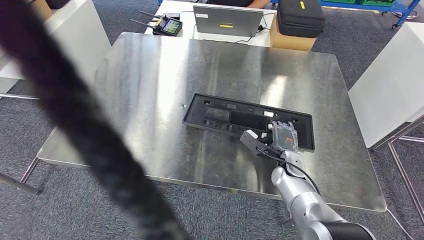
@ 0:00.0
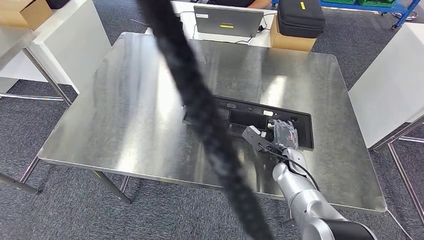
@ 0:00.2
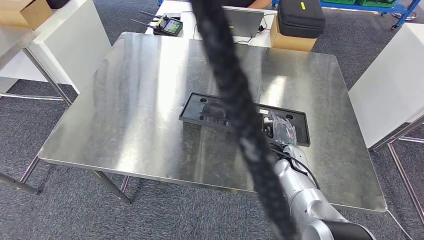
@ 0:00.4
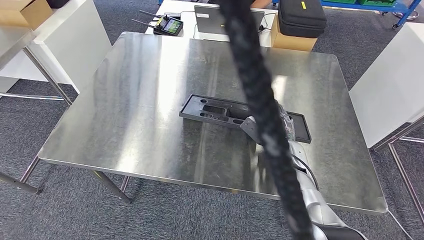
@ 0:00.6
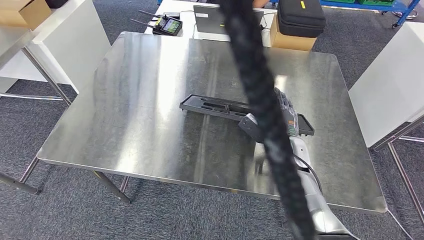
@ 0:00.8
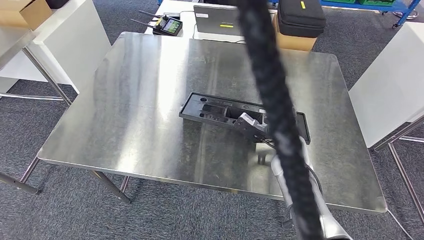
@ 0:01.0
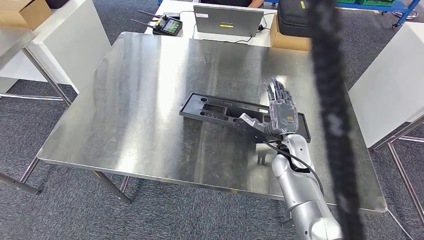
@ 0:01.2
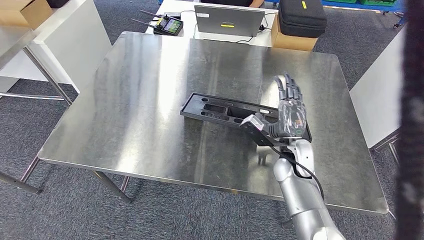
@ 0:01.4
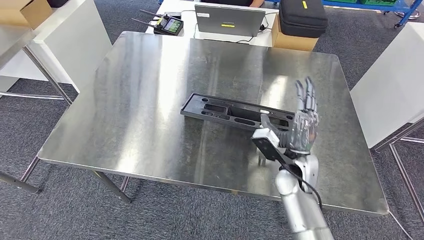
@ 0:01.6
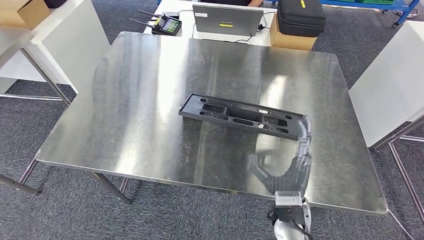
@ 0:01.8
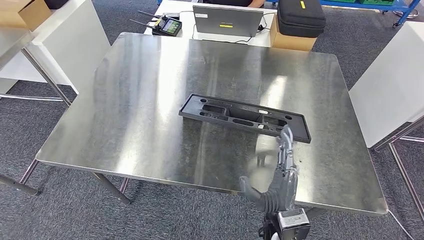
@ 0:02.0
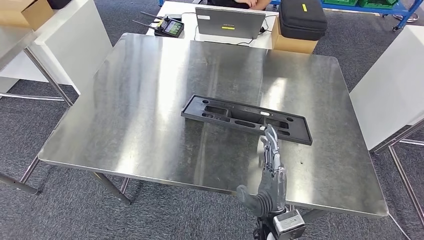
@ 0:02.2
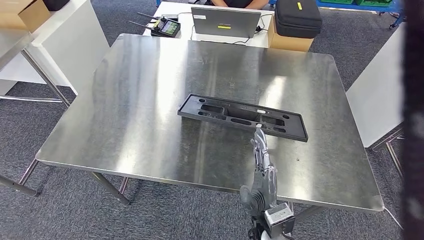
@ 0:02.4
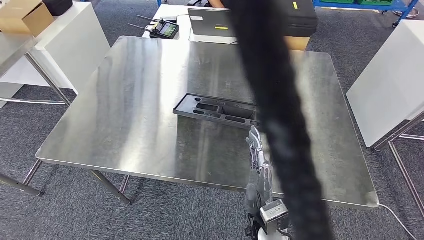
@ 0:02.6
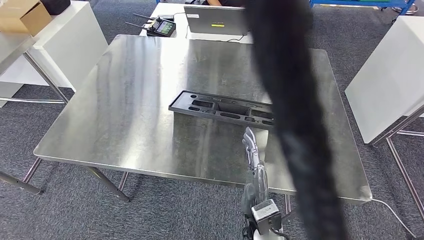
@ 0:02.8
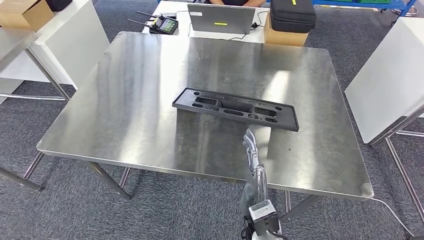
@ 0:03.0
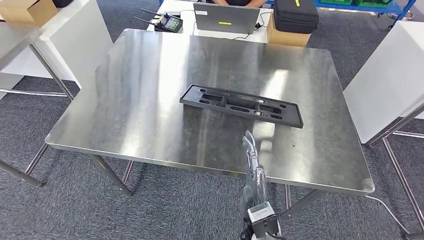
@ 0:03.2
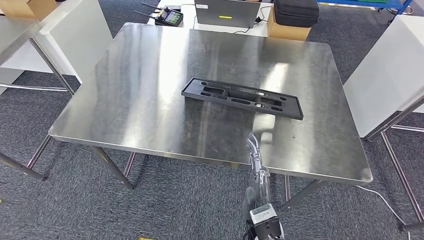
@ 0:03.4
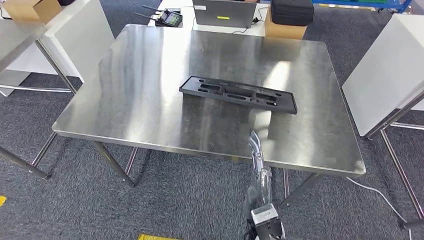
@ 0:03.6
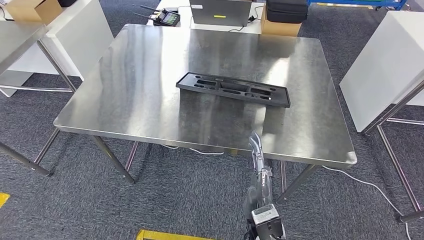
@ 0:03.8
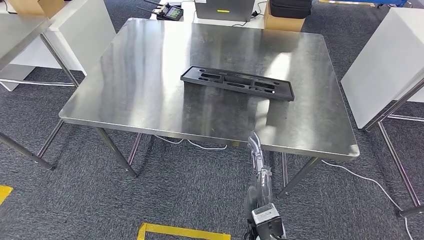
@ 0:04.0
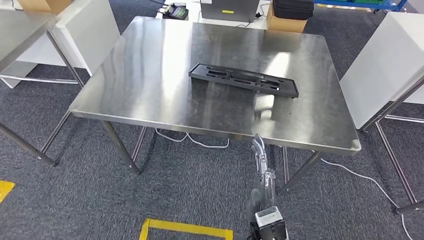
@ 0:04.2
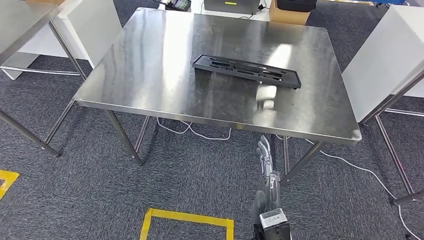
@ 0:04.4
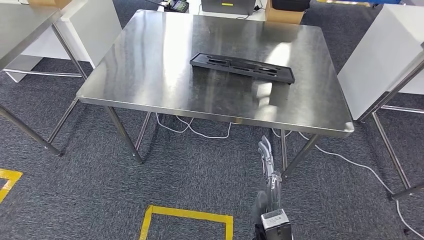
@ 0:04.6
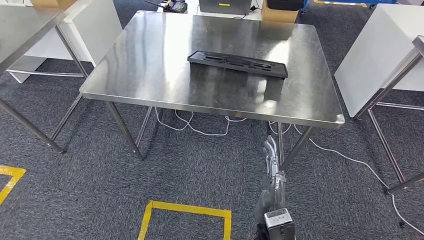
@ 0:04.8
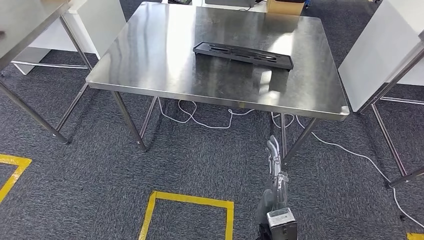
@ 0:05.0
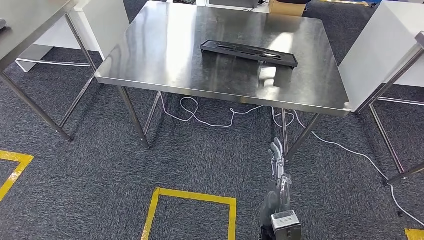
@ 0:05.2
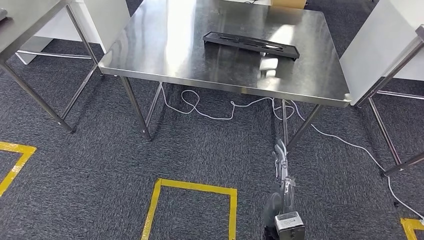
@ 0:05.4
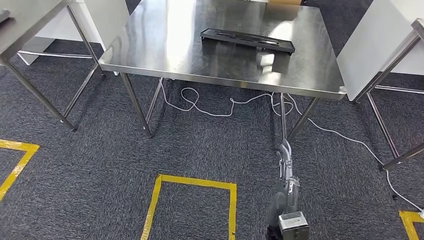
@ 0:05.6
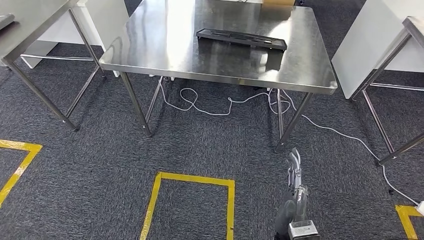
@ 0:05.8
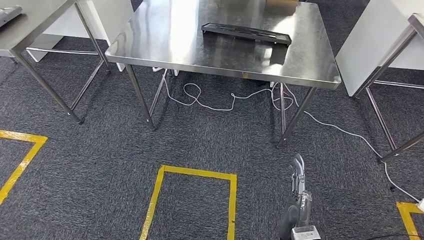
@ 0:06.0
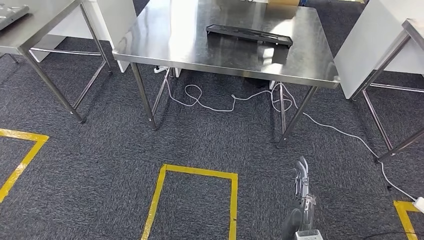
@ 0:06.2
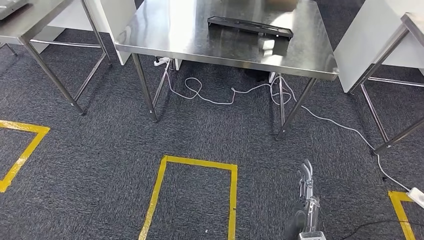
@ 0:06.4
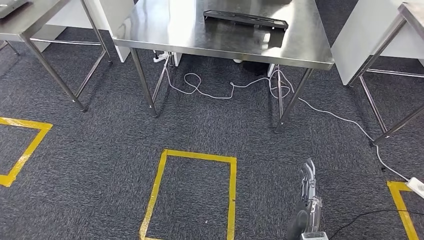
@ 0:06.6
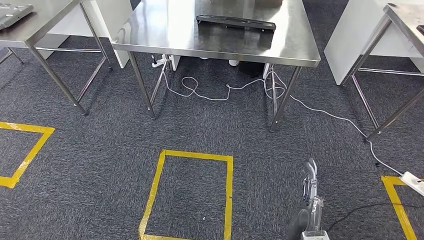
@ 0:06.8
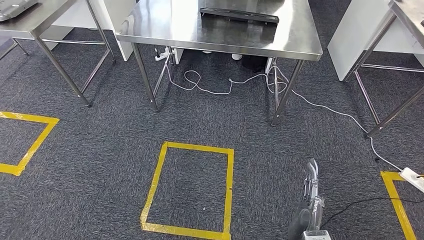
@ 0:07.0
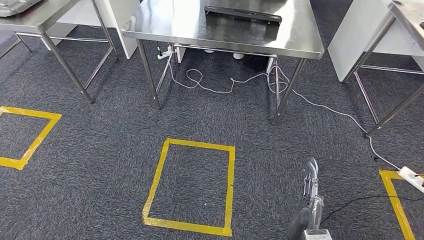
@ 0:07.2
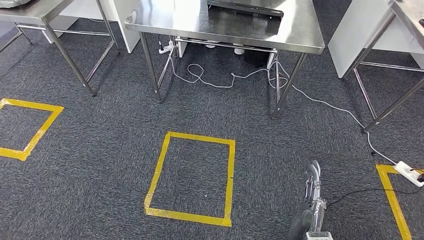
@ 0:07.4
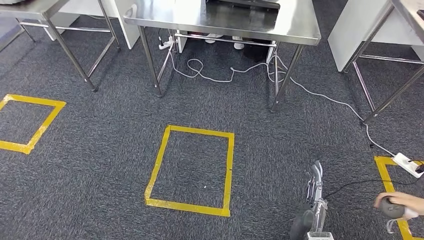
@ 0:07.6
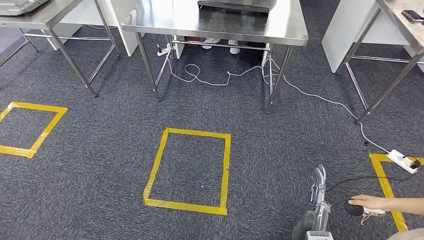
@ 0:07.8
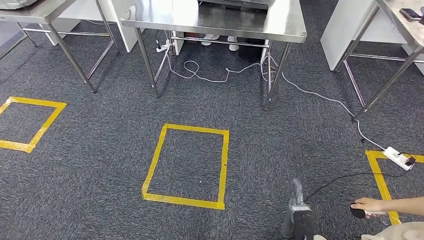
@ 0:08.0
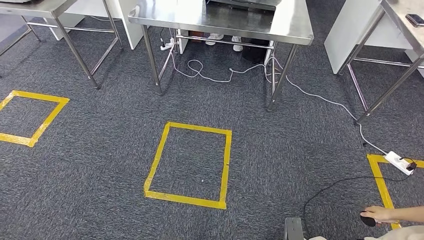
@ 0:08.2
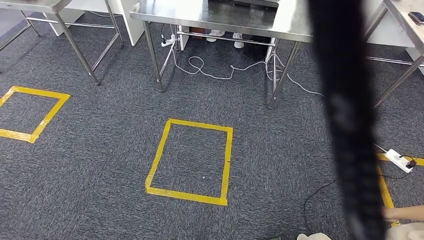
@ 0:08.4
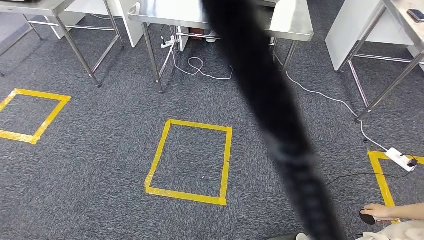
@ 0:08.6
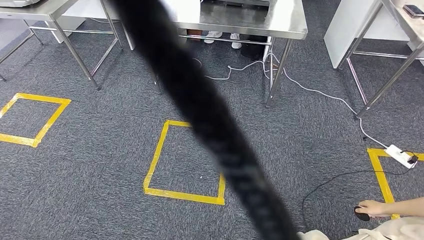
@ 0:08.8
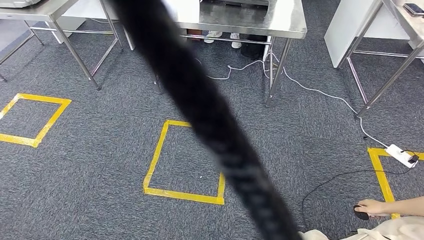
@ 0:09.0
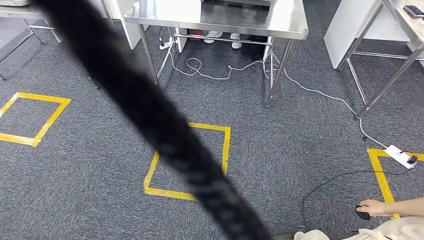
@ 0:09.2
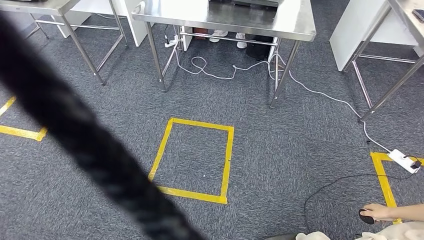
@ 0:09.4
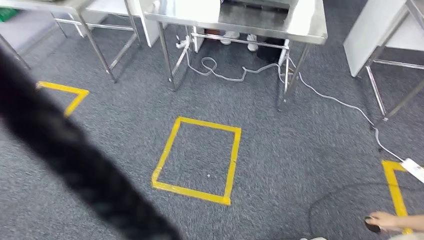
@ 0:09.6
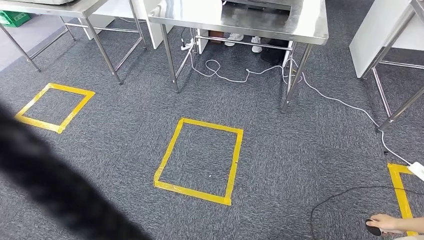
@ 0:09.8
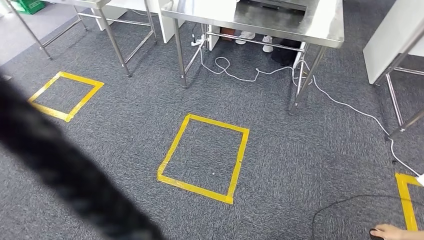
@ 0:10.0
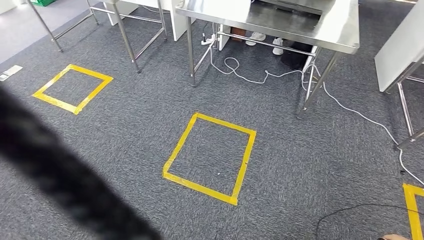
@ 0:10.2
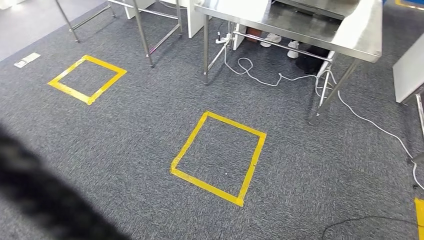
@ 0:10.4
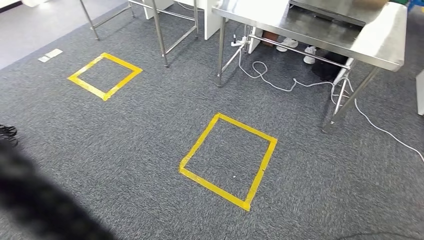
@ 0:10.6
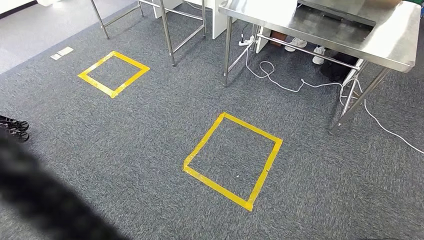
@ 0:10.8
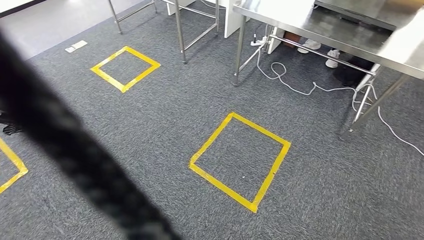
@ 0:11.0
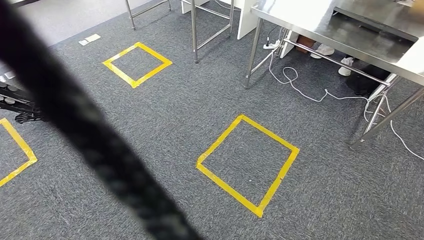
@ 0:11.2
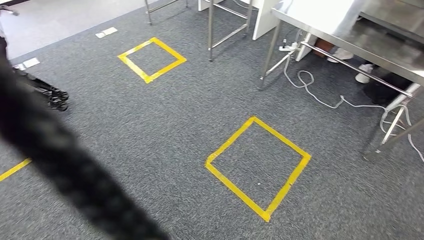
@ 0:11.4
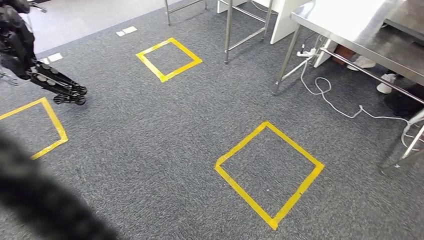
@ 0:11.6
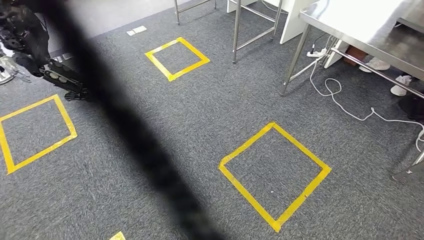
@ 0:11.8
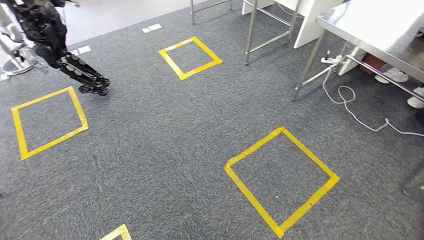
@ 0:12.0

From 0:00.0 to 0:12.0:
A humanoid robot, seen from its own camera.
Step, from 0:00.0 to 0:06.2: Insert the large material into the corresponding slot on the workbench.

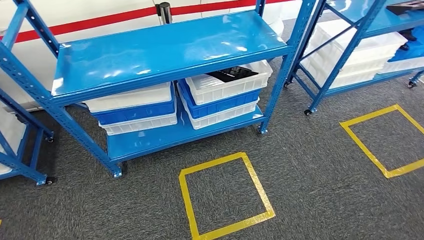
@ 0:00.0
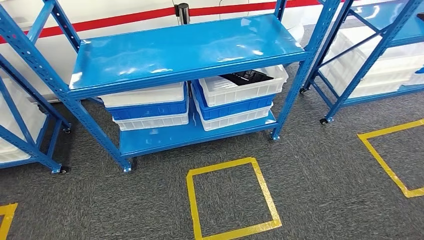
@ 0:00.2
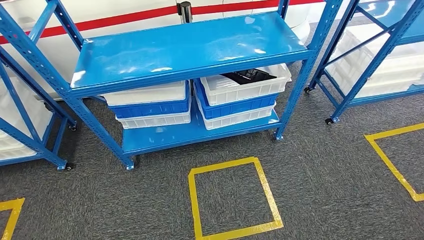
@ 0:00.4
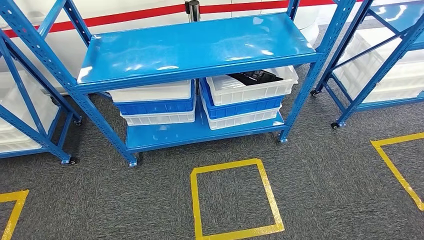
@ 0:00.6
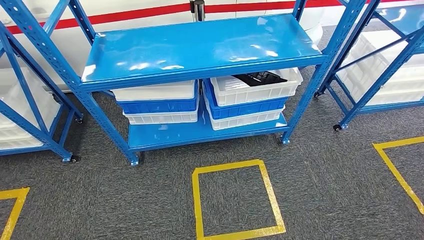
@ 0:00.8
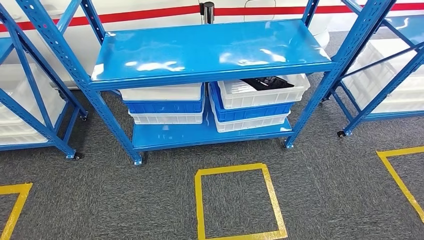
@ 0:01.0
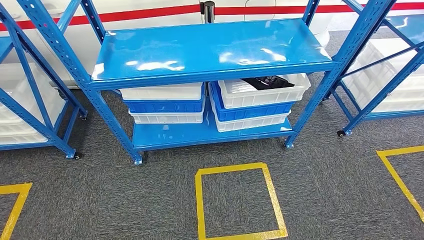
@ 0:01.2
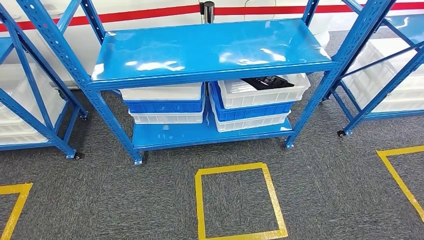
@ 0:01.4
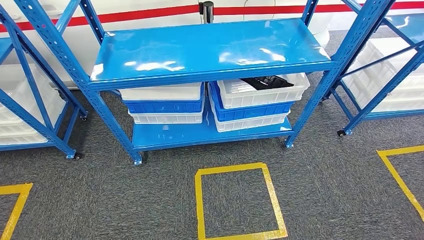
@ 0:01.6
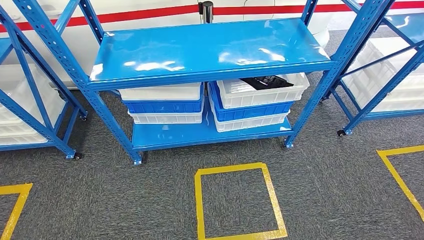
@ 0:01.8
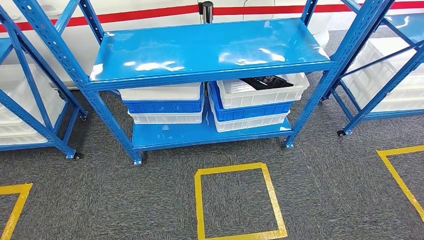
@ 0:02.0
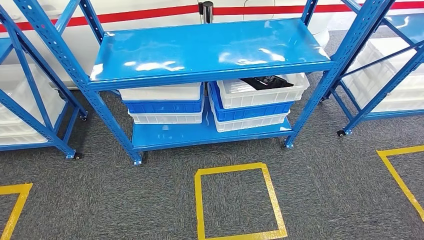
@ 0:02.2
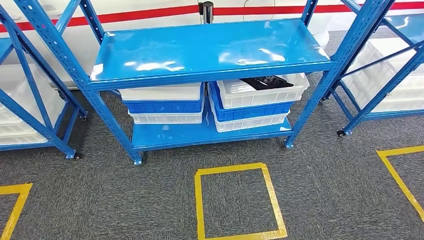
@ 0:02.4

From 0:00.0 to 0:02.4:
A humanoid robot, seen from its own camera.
Step, from 0:00.0 to 0:02.2: Move to the initial position of the shelf.
From 0:01.2 to 0:02.4: The hands stay close to where they were, moving slightly.
